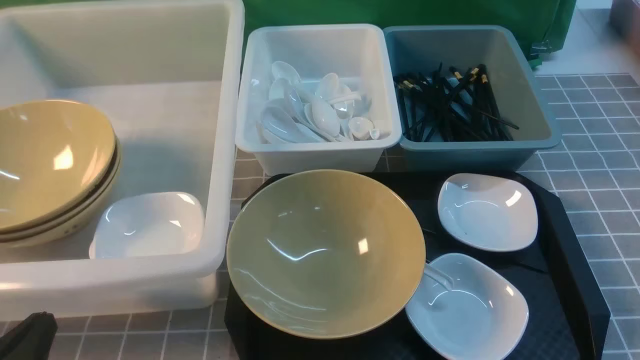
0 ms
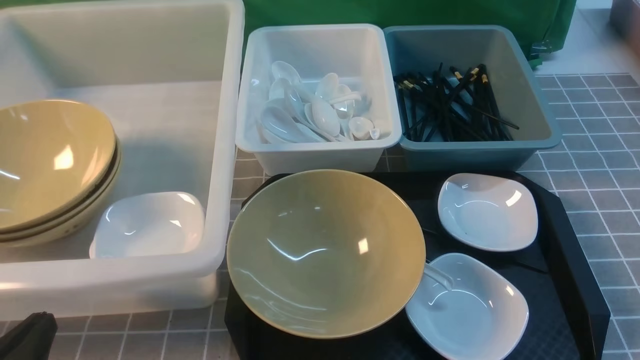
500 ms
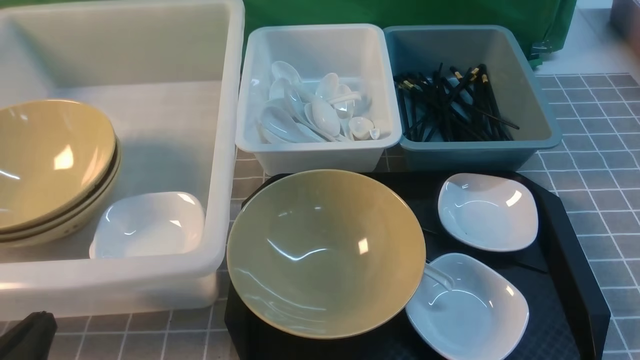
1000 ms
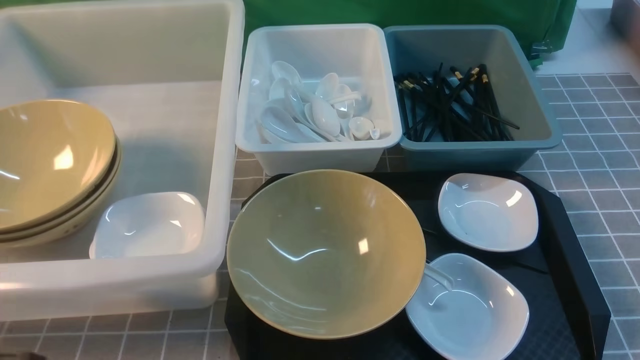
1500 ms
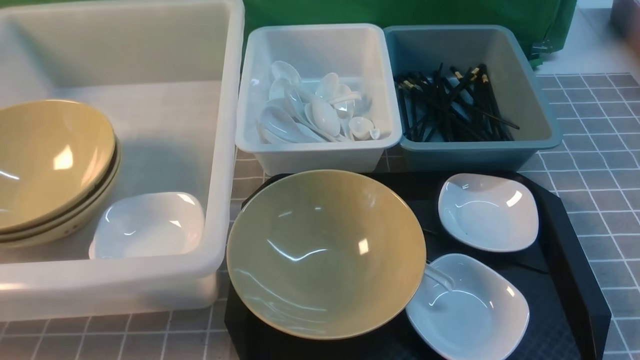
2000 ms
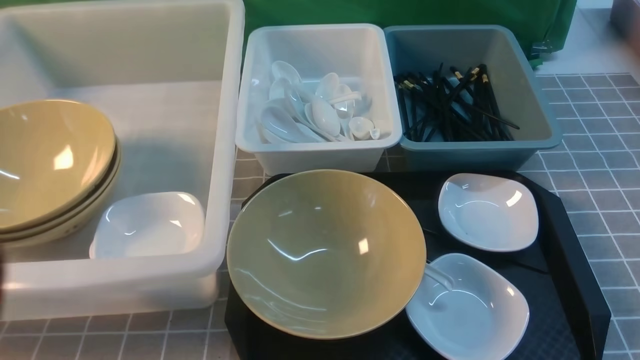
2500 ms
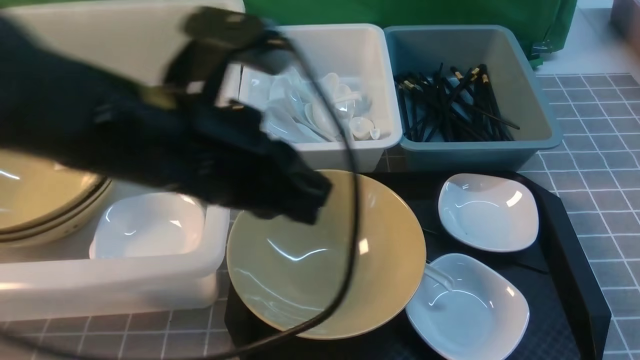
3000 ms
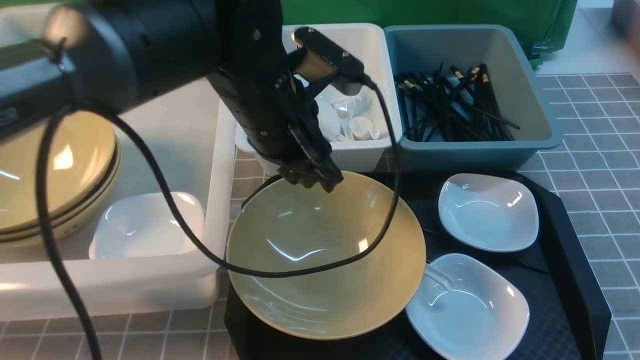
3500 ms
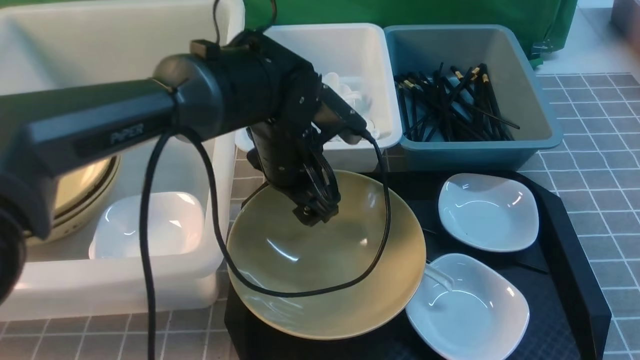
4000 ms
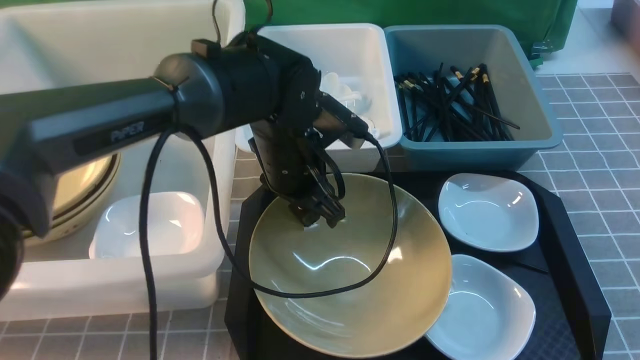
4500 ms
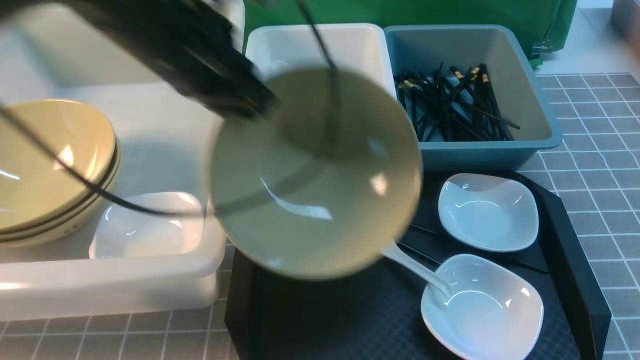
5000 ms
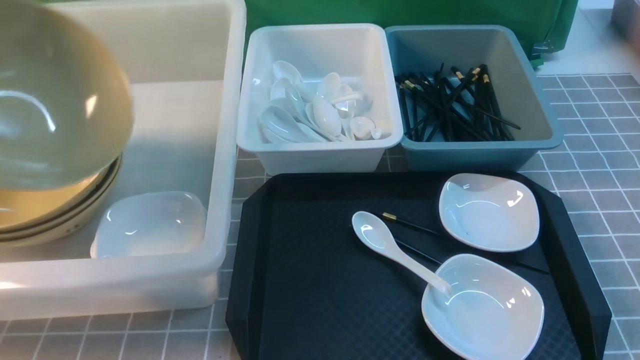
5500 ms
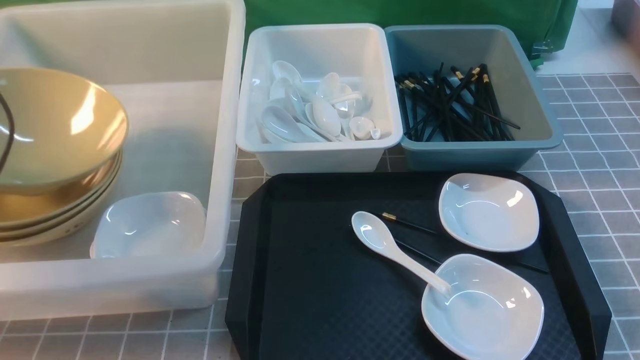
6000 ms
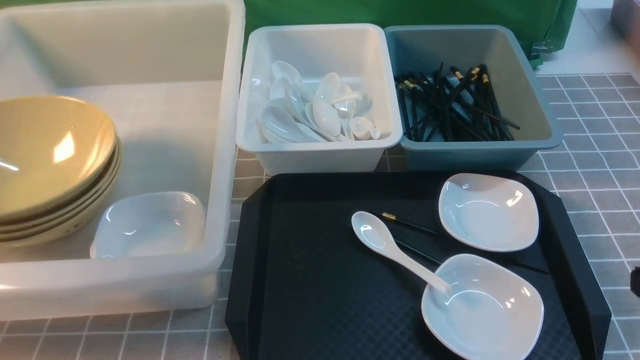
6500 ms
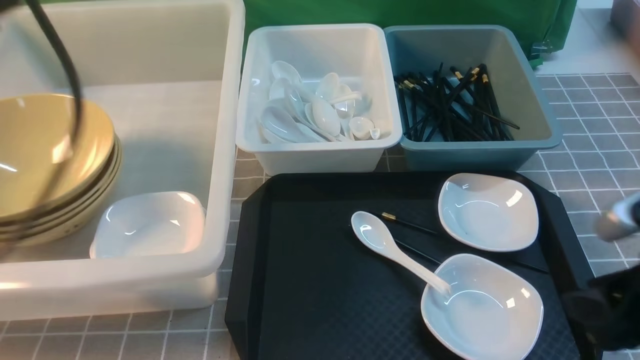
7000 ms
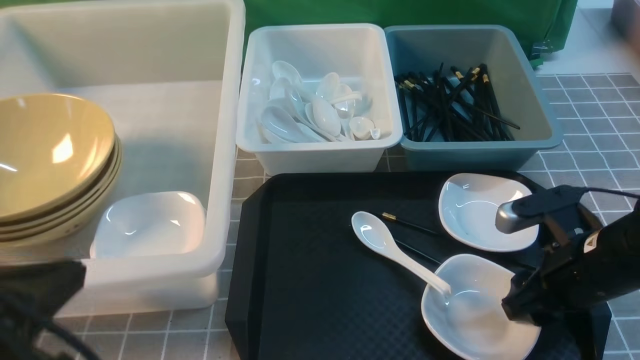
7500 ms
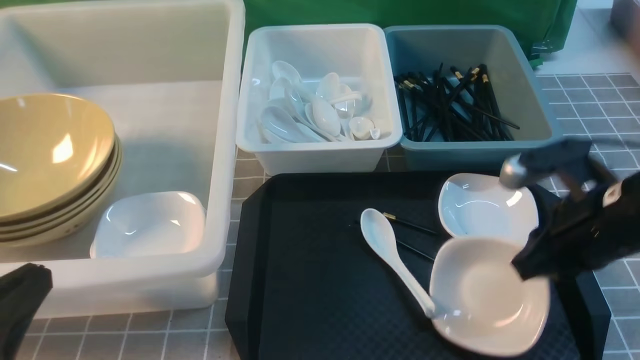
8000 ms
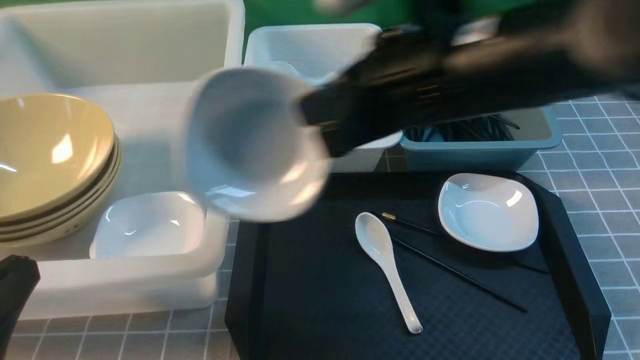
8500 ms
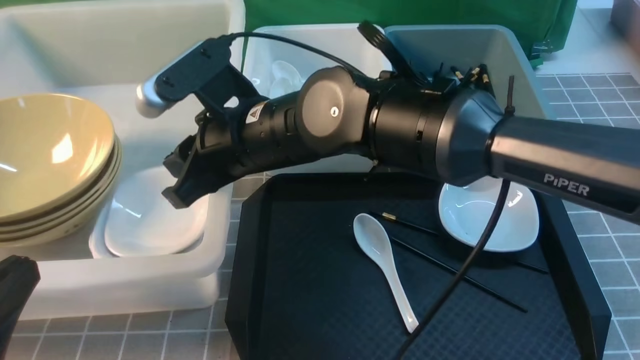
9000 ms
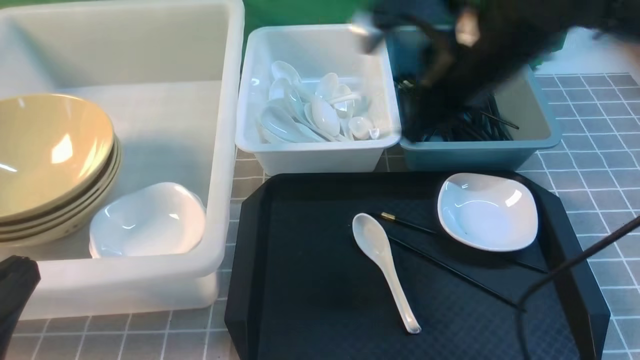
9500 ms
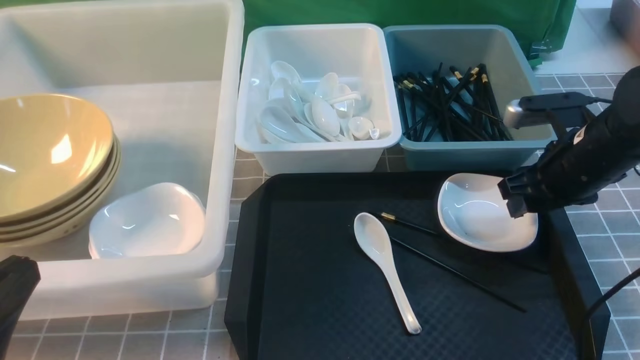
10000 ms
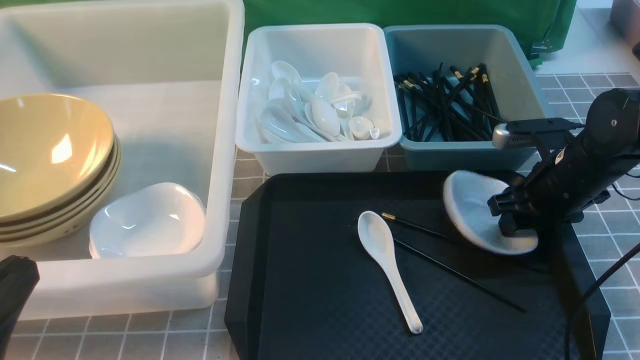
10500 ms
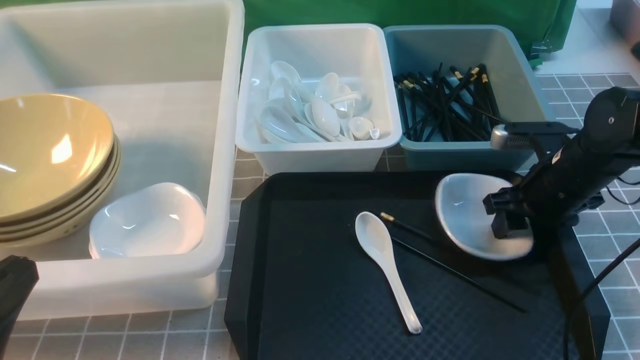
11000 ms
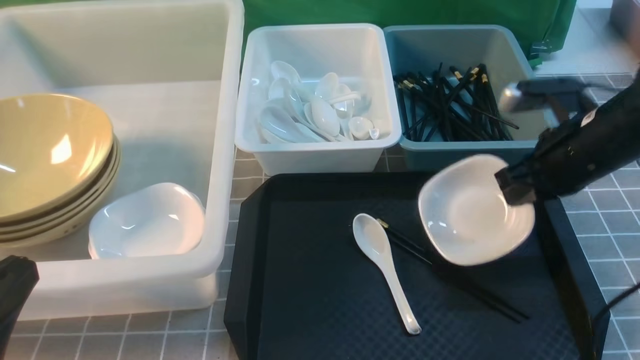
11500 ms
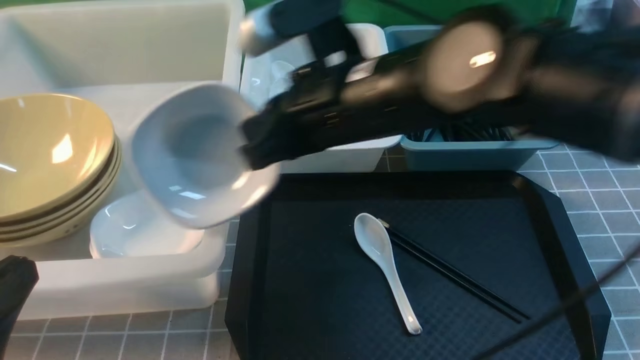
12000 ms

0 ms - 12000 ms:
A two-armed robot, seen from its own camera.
Task of the whole recording: on grey table put chopsticks spoon bowls plates into blue grey white boxes.
Step, 0 ms - 4500 ms: use the left arm to grab the yellow noodle bowl on the left.
Step, 5000 ms - 6500 ms: use the left arm to put the noodle bowl into the large storage box on the left.
Step, 7000 ms - 8000 ms: use the right arm to grab the plate.
Step, 8500 ms - 9000 ms: use the right arm to put the plate into the large storage box on the left.
Step, 9500 ms - 11500 ms: use the right arm to grab the plate.
0 ms - 2000 ms: The left gripper travels upward by some 15 cm.
2000 ms - 4000 ms: The right gripper moves forward, roughly 5 cm. The left gripper goes about 40 cm forward and to the right, and opens up.
4000 ms - 6000 ms: The left gripper is displaced to the left by roughly 35 cm, and closes its fingers.
6000 ms - 8000 ms: The left gripper travels backward and to the right by about 30 cm, and closes. The right gripper is displaced forward and to the left by some 15 cm, and opens, then closes once more.
8000 ms - 10000 ms: The right gripper travels forward by about 10 cm, travels to the left and back again, some 25 cm each way, and opens up.
10000 ms - 12000 ms: The right gripper moves to the left and upward, some 25 cm, and closes its fingers.

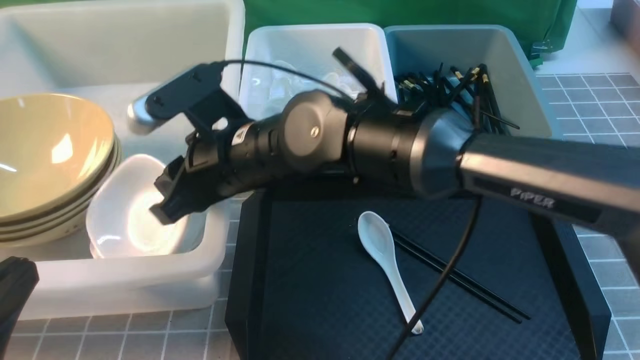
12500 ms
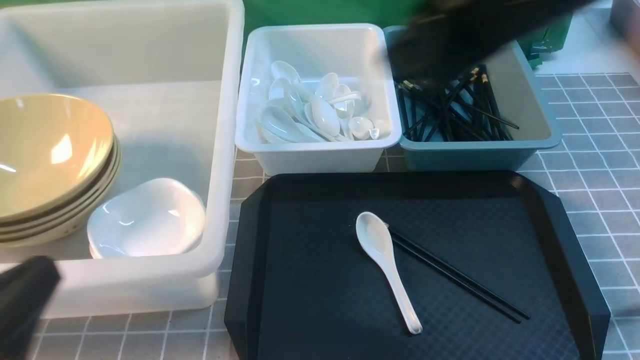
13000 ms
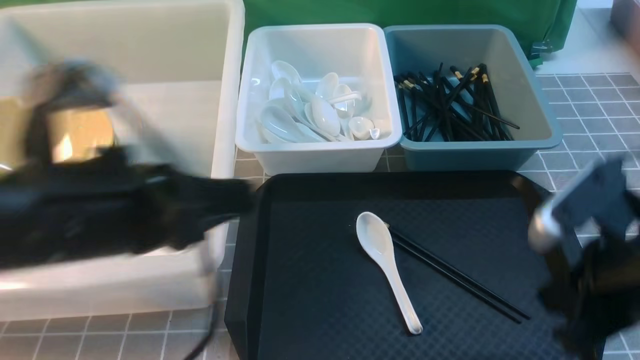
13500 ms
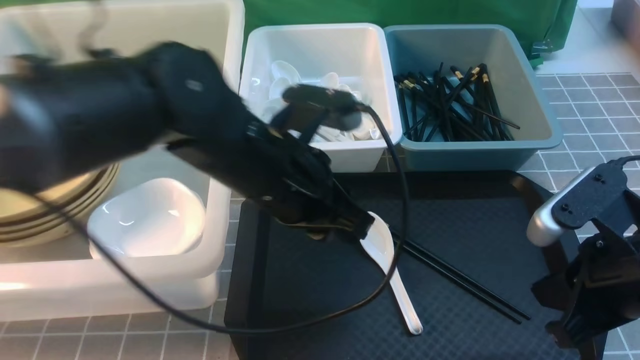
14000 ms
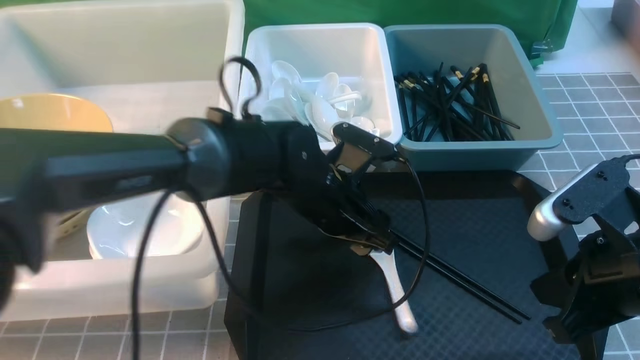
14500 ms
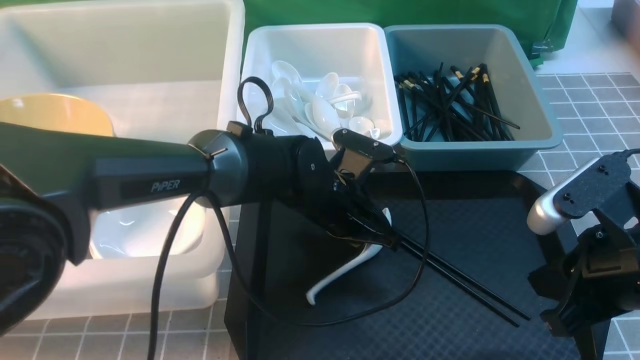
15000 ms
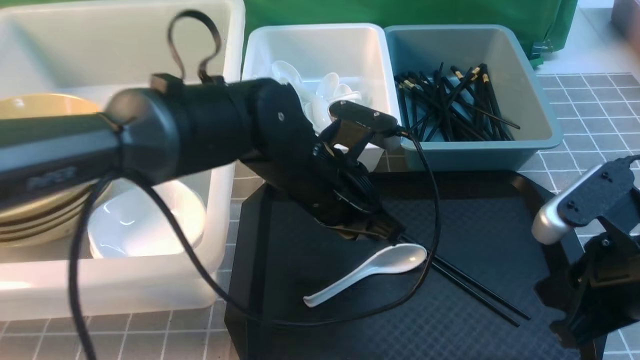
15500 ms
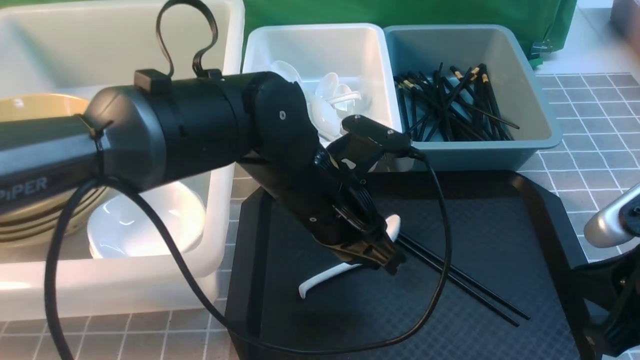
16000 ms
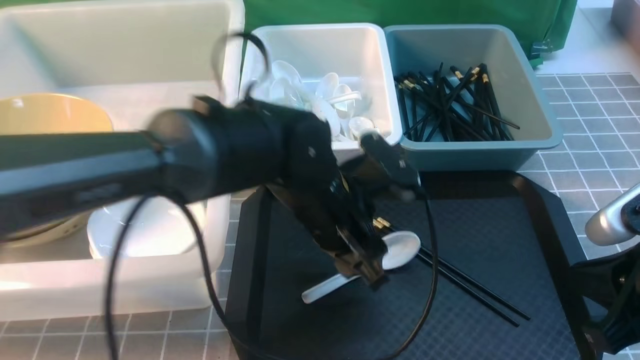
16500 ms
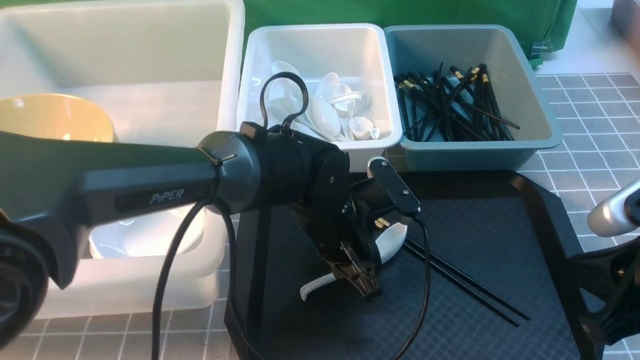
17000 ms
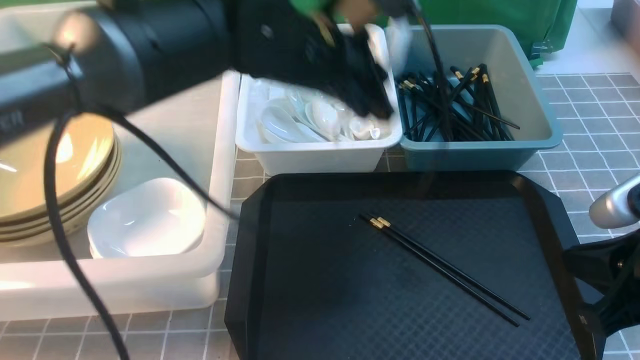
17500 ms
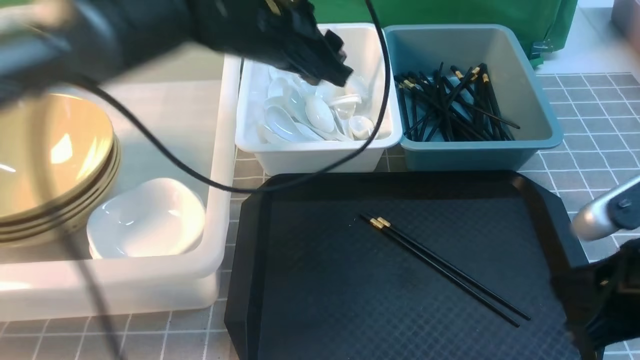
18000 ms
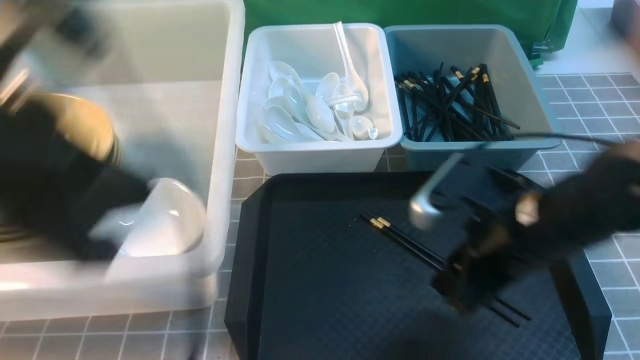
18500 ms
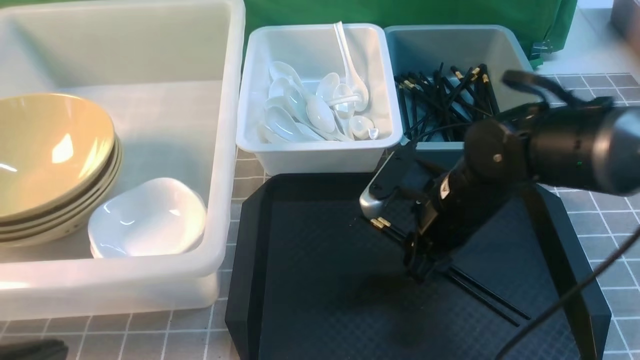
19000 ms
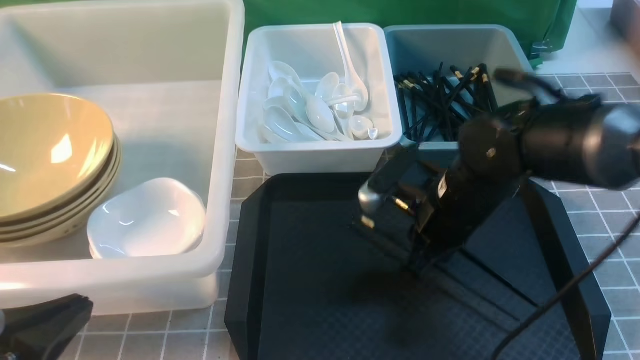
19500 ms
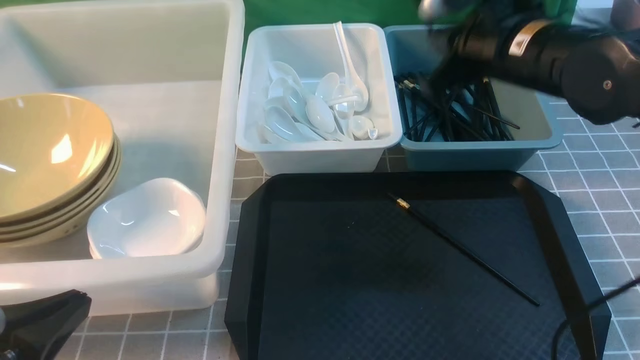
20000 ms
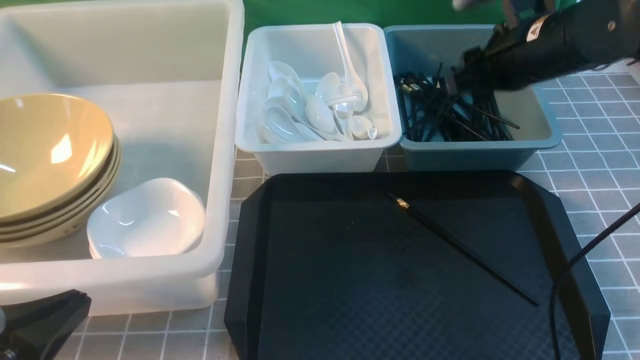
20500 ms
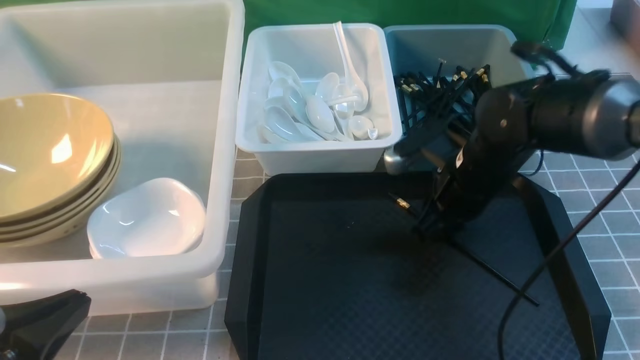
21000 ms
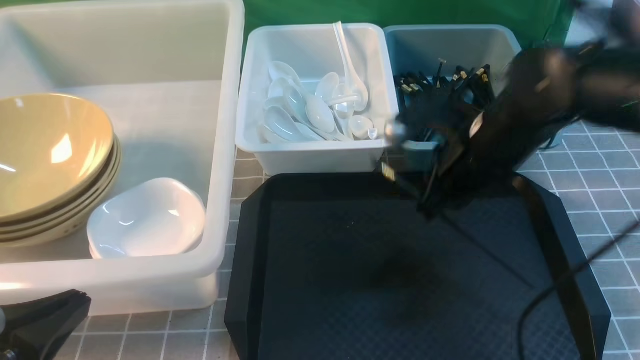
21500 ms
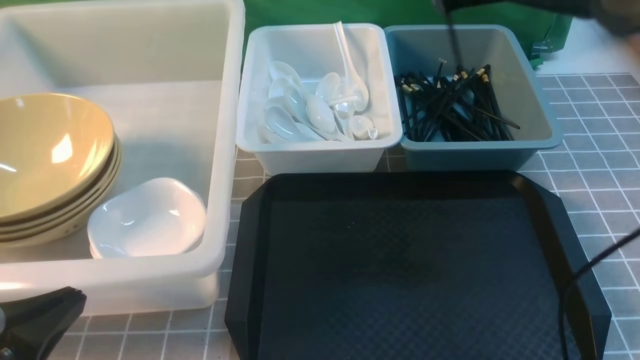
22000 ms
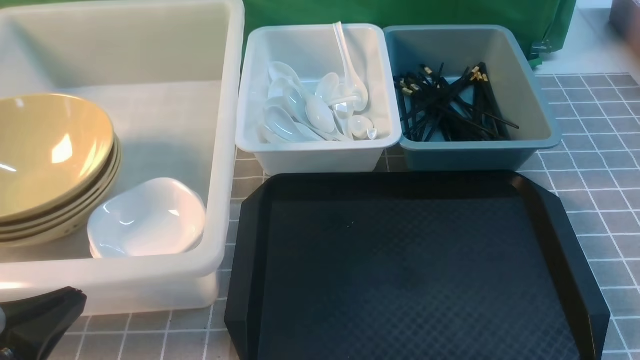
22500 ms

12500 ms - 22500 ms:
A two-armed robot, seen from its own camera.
Task of the whole recording: on grey table put chopsticks spoon bowls plates into blue grey white boxes.
Step, 13000 ms - 17000 ms: use the left arm to grab the soup spoon in the middle.
Step, 17500 ms - 18000 ms: use the left arm to put the soup spoon into the small storage box in the middle.
Step, 18500 ms - 19500 ms: use the right arm to grab a chopstick.
Step, 21000 ms - 21500 ms: use the right arm to grab a chopstick.
12500 ms - 14500 ms: The right gripper goes roughly 30 cm to the right and backward, and closes up. The left gripper goes about 35 cm forward and to the right, and opens its fingers.
14500 ms - 16500 ms: The left gripper travels upward and back again, approximately 5 cm each way, and closes, then reopens.
16500 ms - 18500 ms: The right gripper moves to the left and forward, roughly 15 cm, and opens. The left gripper heads upward, to the left and backward, covering some 30 cm, and closes its fingers.
18500 ms - 20500 ms: The right gripper goes approximately 15 cm forward, and closes, then reopens. The left gripper travels downward and backward by some 15 cm.
20500 ms - 22500 ms: The right gripper goes about 25 cm upward and backward, and closes its fingers.
